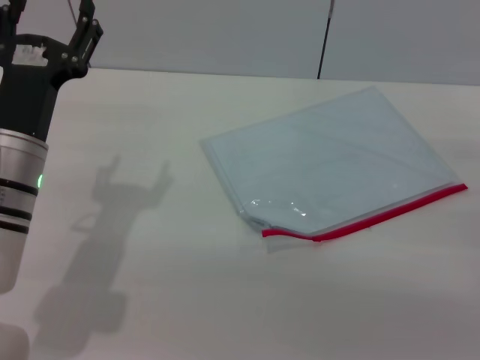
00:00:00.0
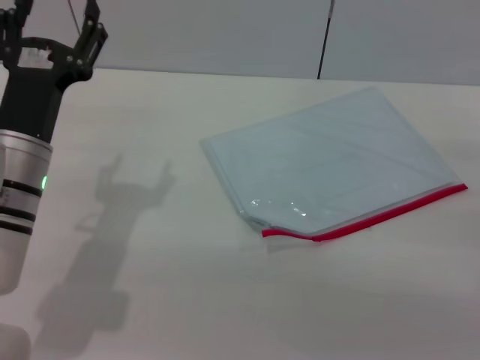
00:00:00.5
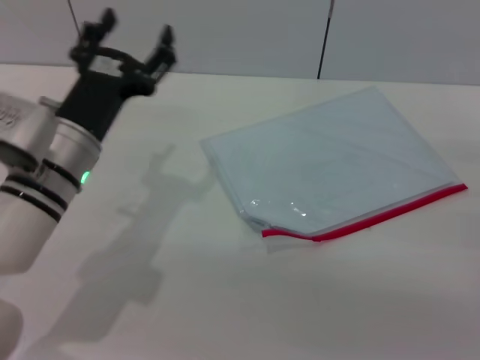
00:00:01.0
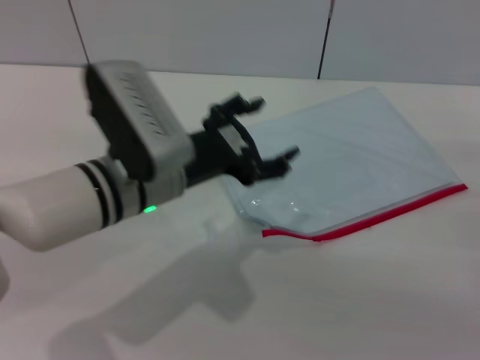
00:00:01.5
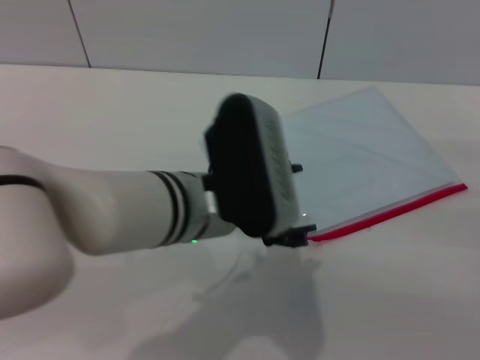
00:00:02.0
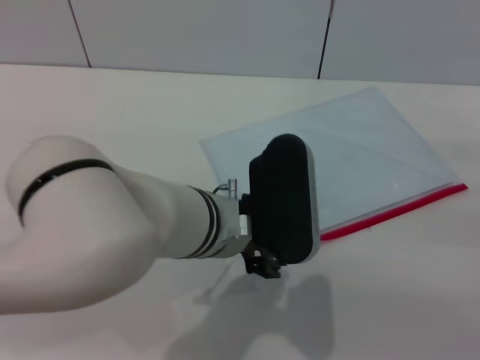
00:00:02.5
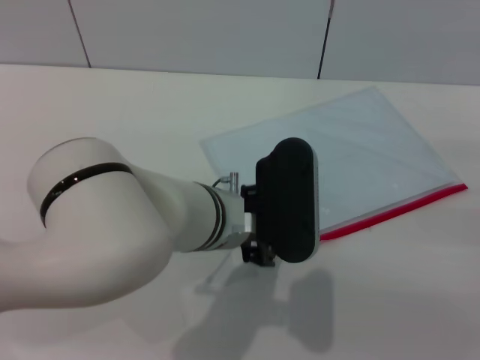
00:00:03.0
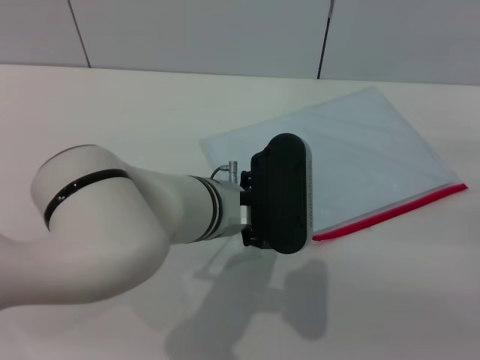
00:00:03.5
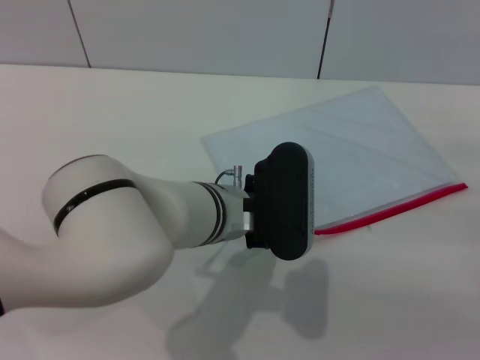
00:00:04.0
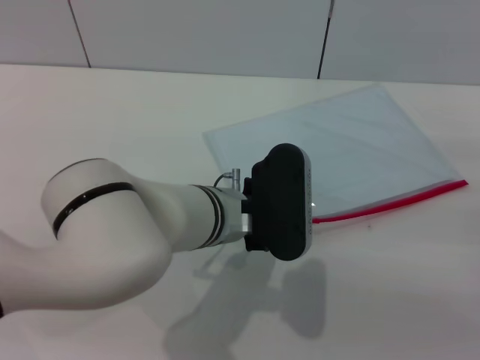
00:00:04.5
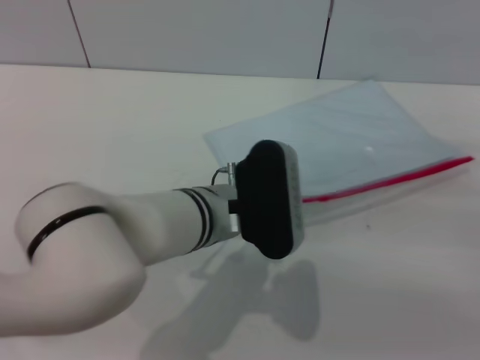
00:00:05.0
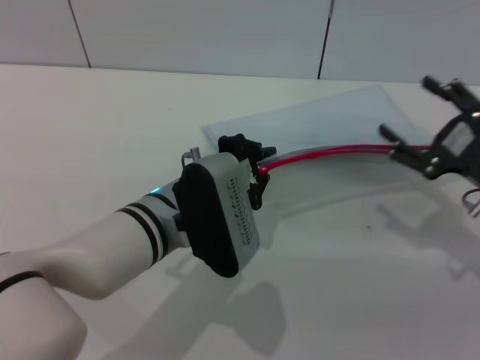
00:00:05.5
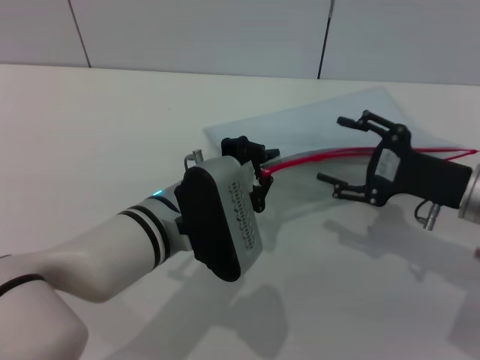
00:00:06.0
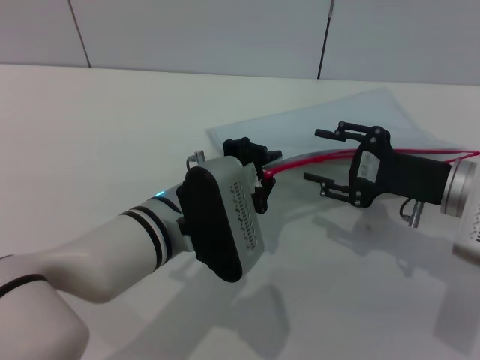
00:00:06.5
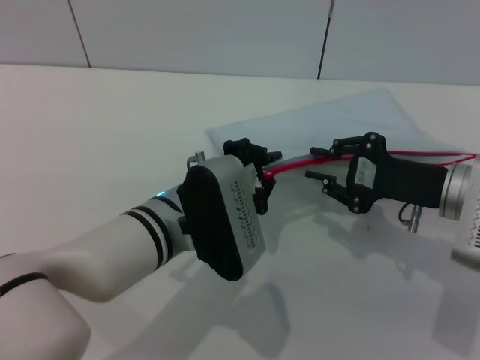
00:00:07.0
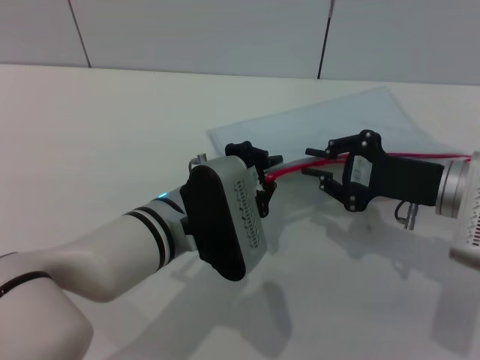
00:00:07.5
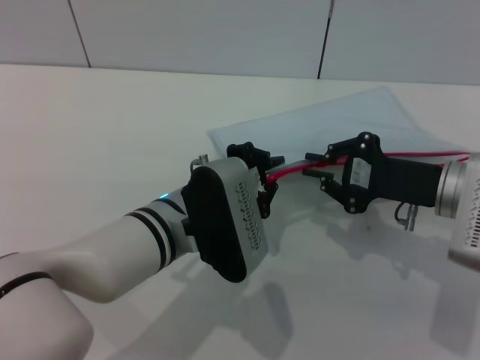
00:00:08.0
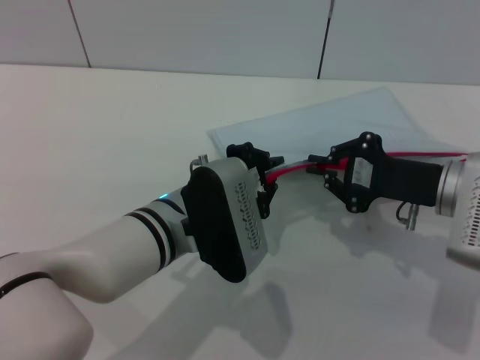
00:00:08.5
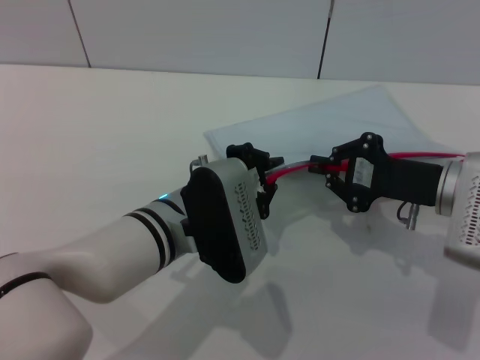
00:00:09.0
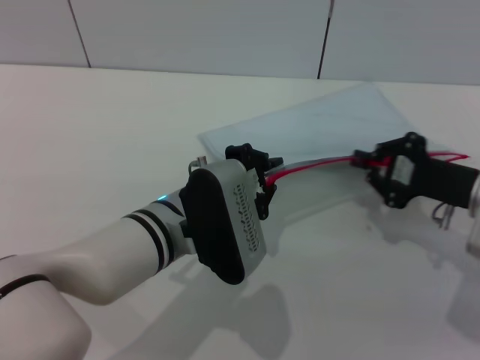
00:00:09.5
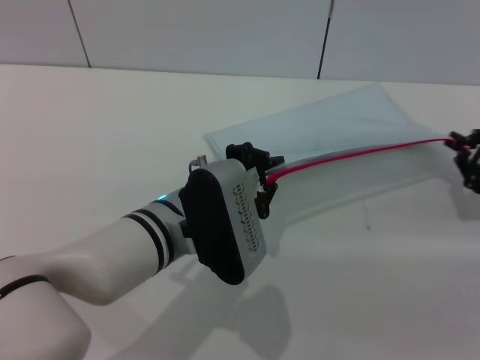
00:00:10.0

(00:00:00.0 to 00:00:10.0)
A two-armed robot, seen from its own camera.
Step, 00:00:00.0 - 00:00:05.0: Pick up the transparent plastic bag with the left gripper.
00:00:00.0 - 00:00:02.0: The left gripper shifts roughly 15 cm to the right.
00:00:02.0 - 00:00:04.0: The left gripper ends up roughly 5 cm from where it was.
00:00:04.0 - 00:00:06.0: The left gripper closes up. Meanwhile the right gripper goes approximately 10 cm to the left and forward.
00:00:06.0 - 00:00:08.0: The right gripper closes.
00:00:08.0 - 00:00:10.0: The right gripper goes approximately 10 cm to the right.

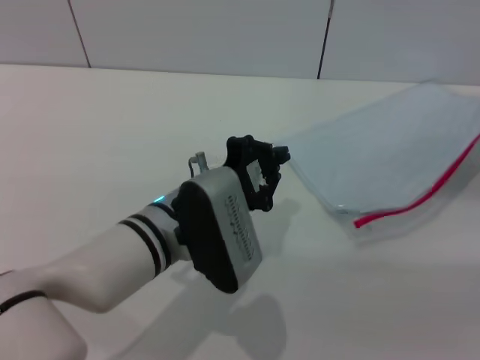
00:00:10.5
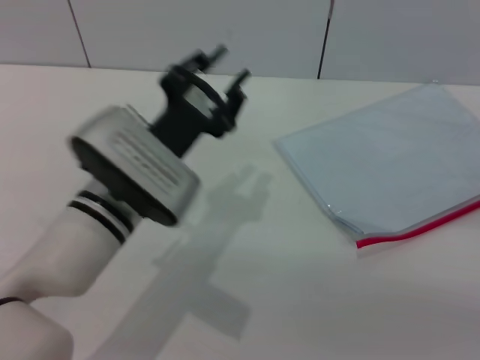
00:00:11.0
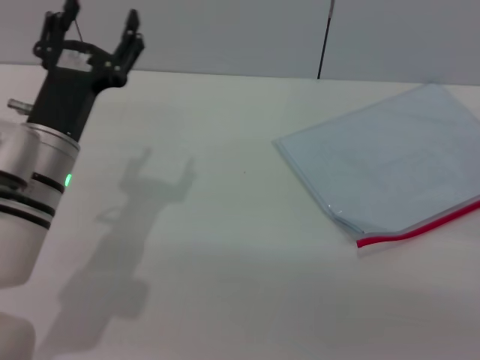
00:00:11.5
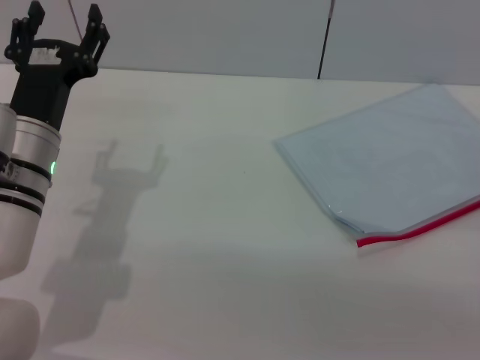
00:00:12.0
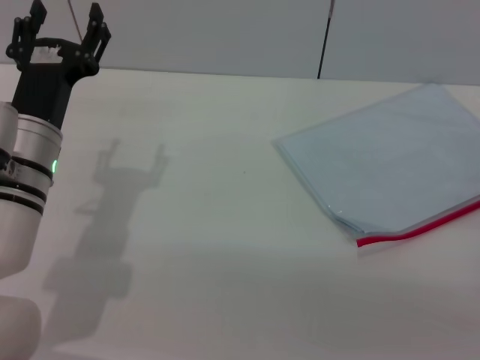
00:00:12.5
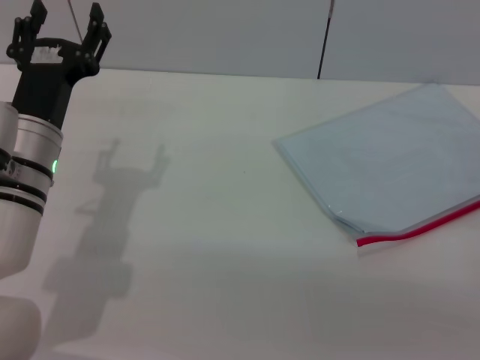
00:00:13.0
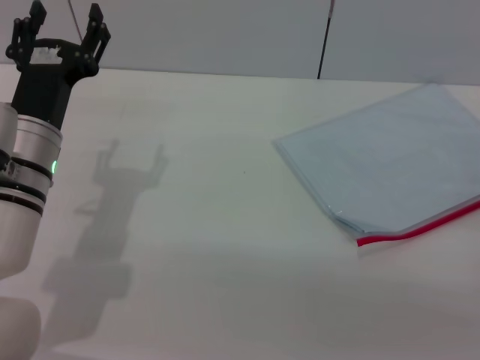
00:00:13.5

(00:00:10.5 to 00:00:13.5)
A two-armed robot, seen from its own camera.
Step, 00:00:11.0 - 00:00:12.0: Place the transparent plastic bag.
00:00:10.5 - 00:00:12.0: The right gripper goes some 5 cm backward, and opens, while the left gripper travels to the left by approximately 15 cm, and opens up.
00:00:12.0 - 00:00:13.5: The grippers move only a little.

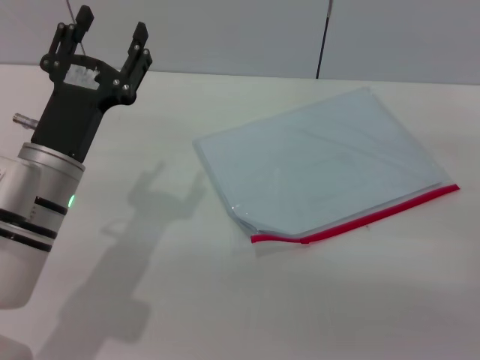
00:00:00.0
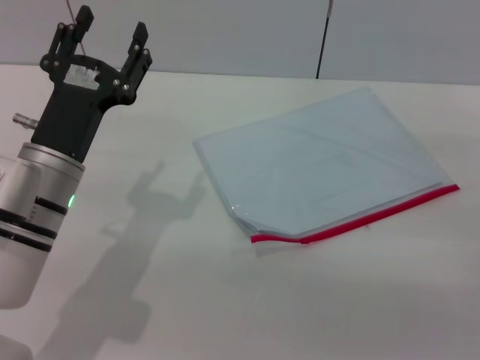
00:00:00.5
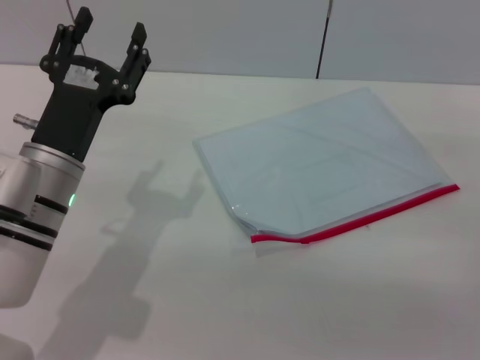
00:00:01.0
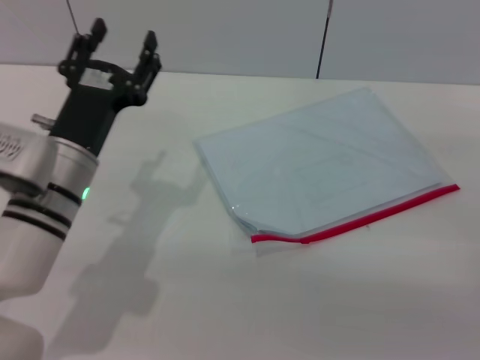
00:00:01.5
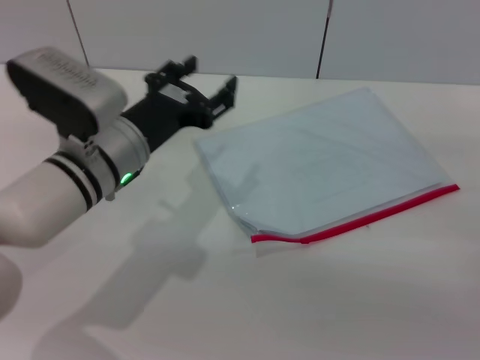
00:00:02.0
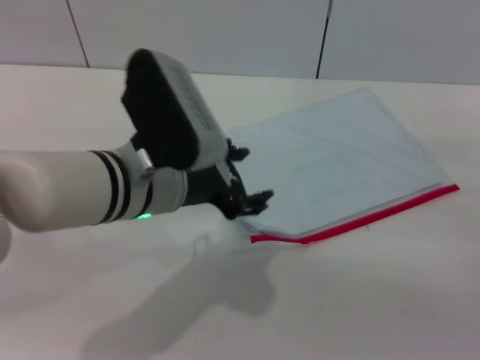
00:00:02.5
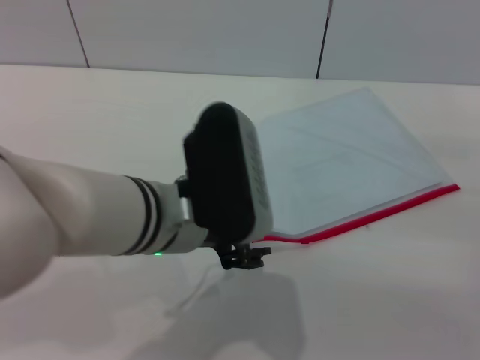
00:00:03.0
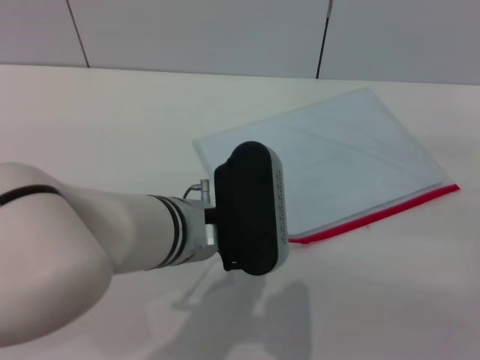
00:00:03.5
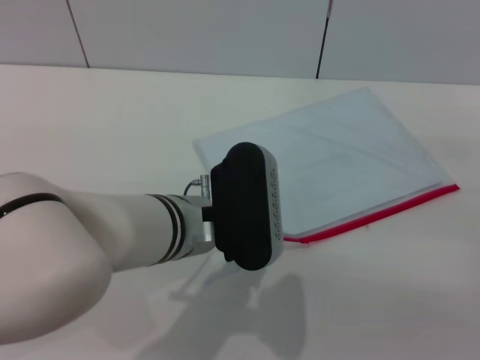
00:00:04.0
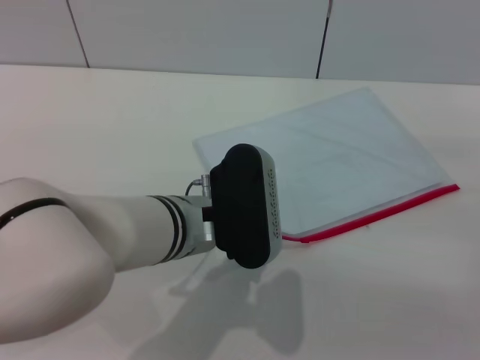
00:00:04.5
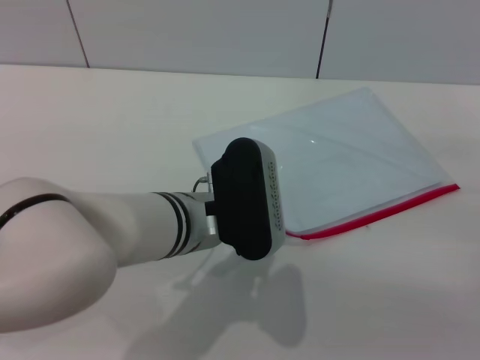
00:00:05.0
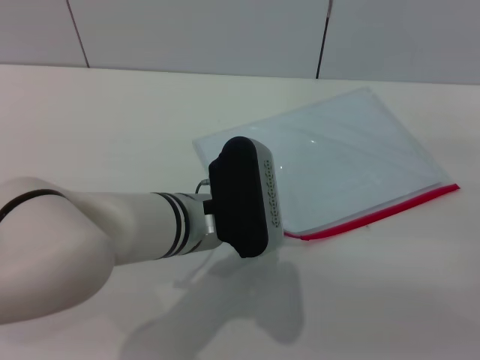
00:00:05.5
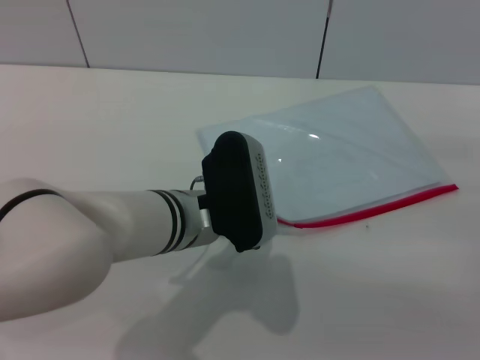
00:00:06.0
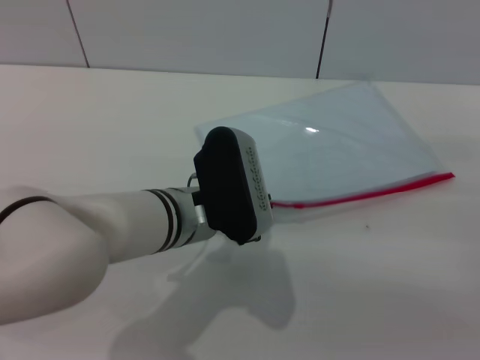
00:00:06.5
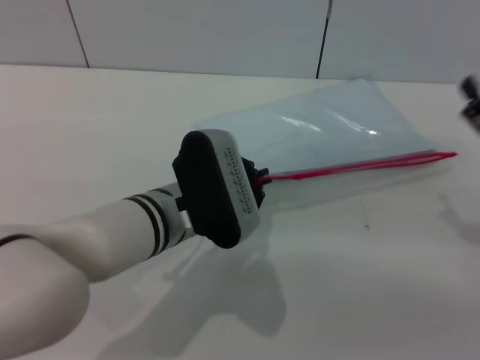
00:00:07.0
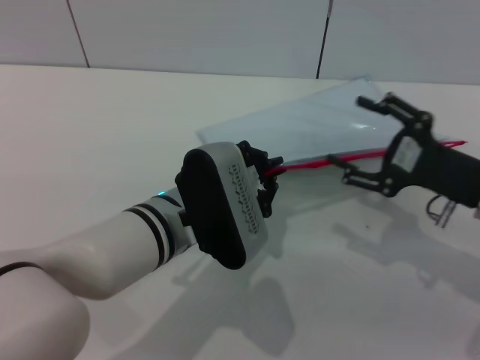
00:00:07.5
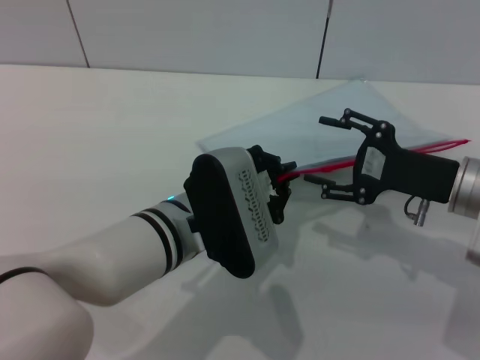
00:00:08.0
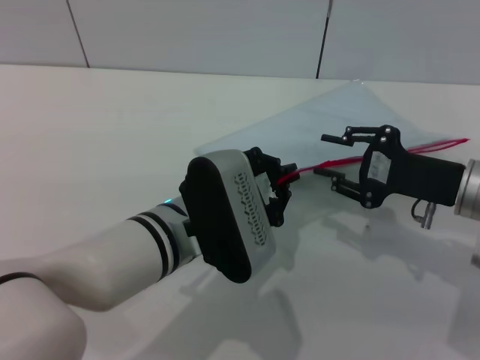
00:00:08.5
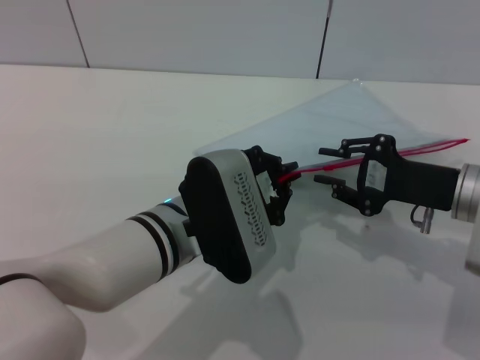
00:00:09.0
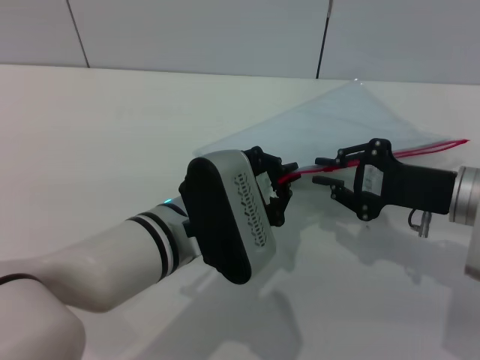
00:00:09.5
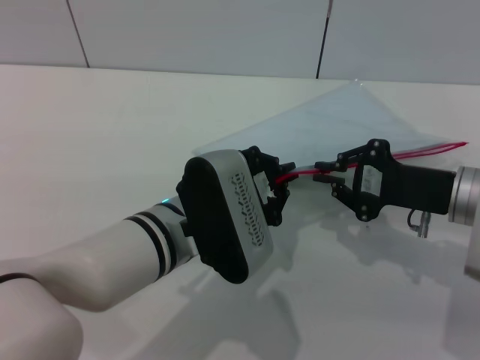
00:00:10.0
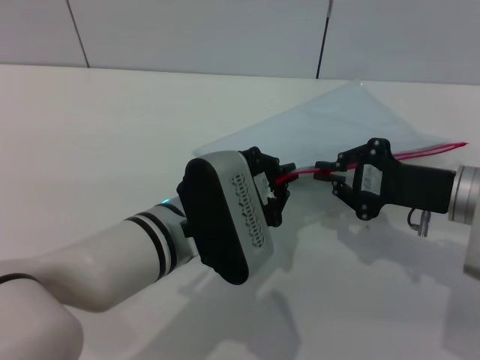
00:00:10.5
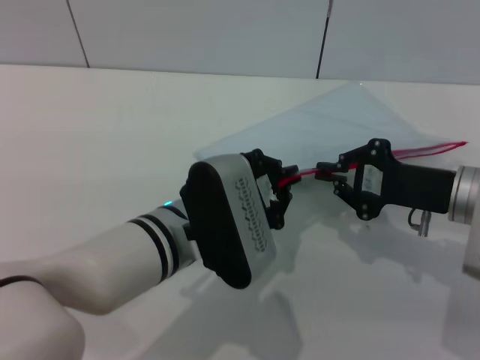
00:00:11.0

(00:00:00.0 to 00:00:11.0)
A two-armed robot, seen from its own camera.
Step, 00:00:00.0 - 00:00:06.5: Pick up the transparent plastic bag with the left gripper.
00:00:00.0 - 00:00:02.0: The left gripper changes place by roughly 5 cm.
00:00:02.0 - 00:00:03.5: The left gripper moves to the right and backward, roughly 10 cm.
00:00:03.5 - 00:00:05.5: The grippers make only small movements.
00:00:05.5 - 00:00:07.5: The left gripper closes its fingers. The right gripper heads to the left, covering some 5 cm.
00:00:07.5 - 00:00:09.0: The right gripper closes up.
00:00:09.0 - 00:00:11.0: The right gripper closes up.

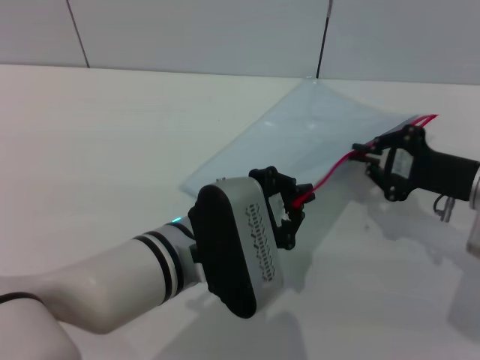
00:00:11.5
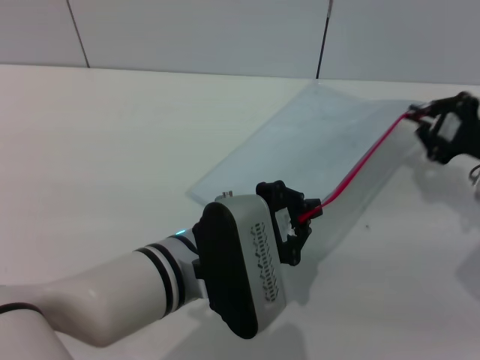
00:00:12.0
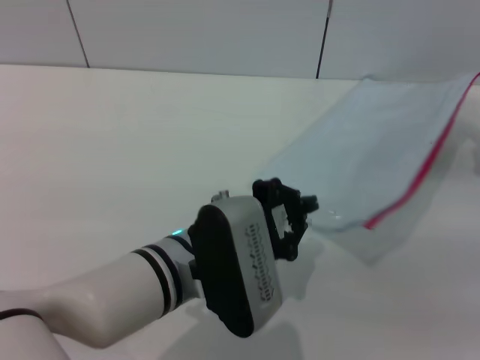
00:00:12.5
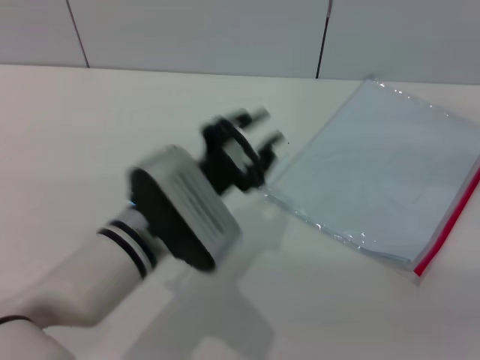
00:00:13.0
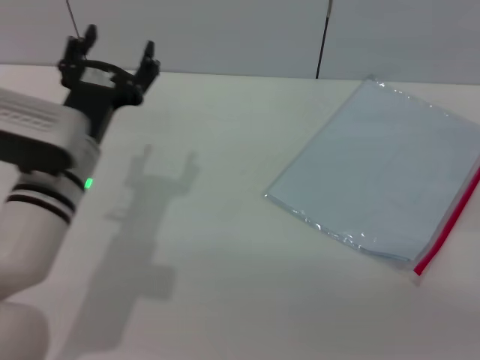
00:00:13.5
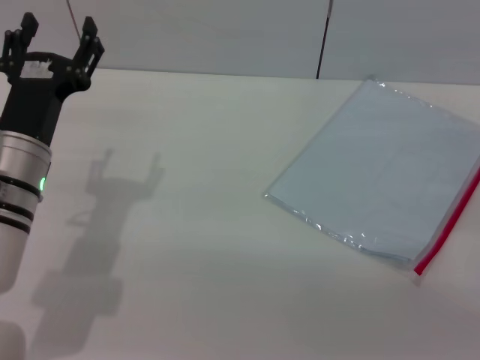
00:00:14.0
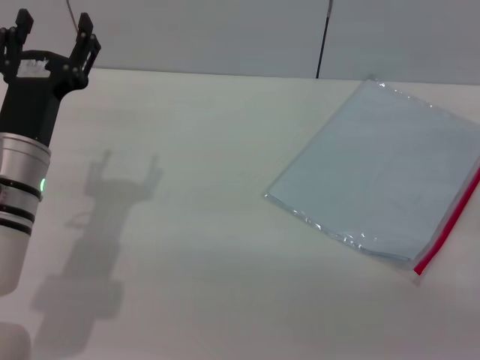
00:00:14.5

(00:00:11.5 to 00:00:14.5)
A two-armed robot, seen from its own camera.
Step, 00:00:13.5 - 00:00:14.0: Place the transparent plastic bag.
00:00:11.5 - 00:00:13.0: The right gripper goes some 10 cm to the right, and opens.
00:00:13.0 - 00:00:14.5: The right gripper heads backward, covering about 5 cm, and opens. The left gripper heads to the left, covering about 10 cm, and opens its fingers.
